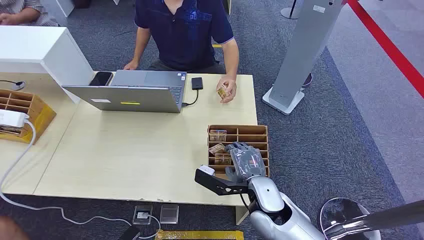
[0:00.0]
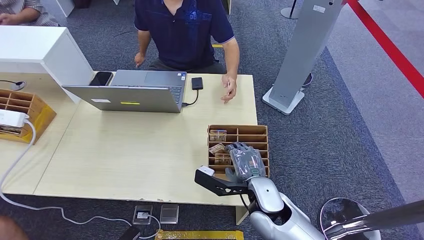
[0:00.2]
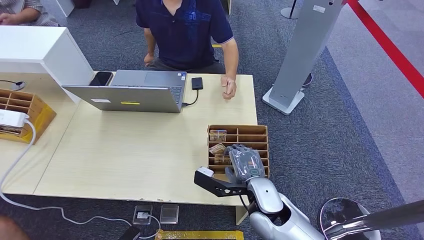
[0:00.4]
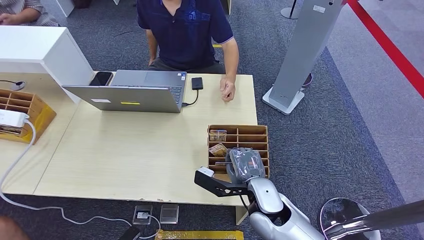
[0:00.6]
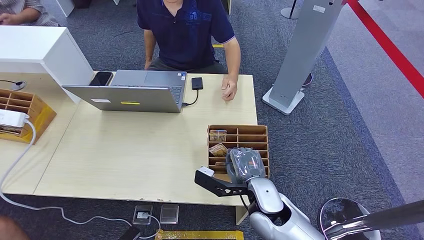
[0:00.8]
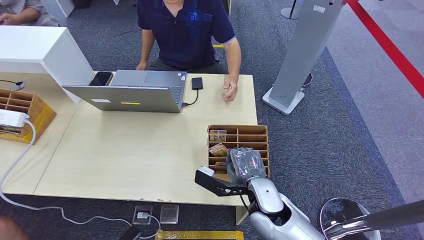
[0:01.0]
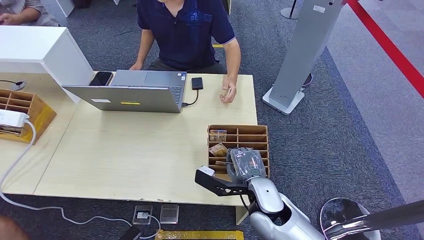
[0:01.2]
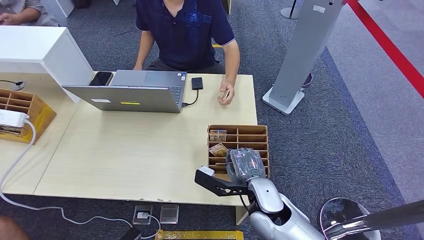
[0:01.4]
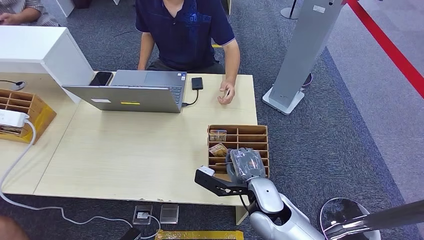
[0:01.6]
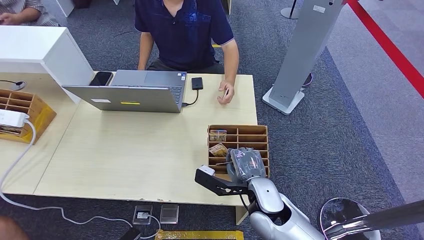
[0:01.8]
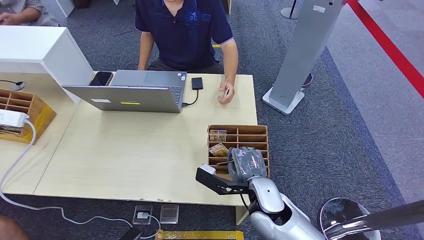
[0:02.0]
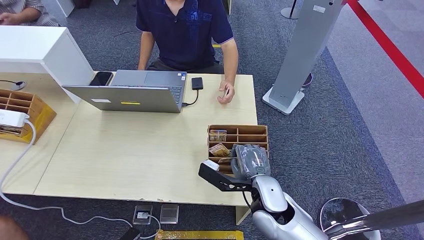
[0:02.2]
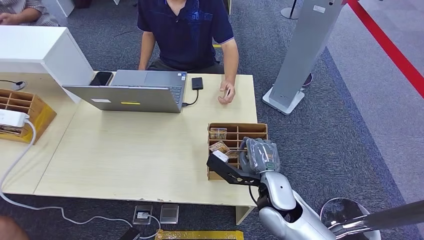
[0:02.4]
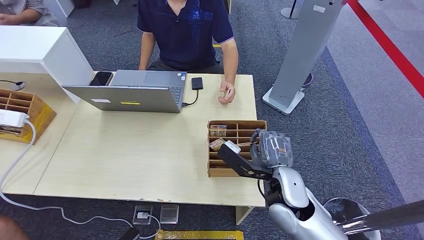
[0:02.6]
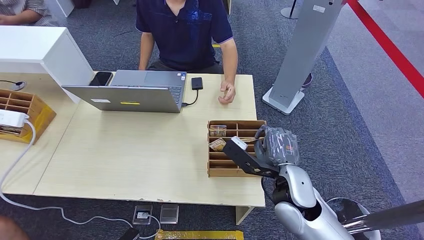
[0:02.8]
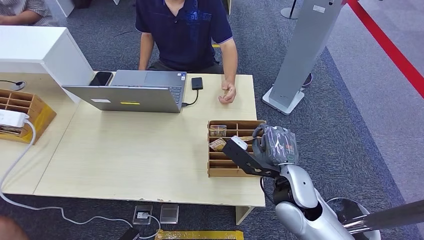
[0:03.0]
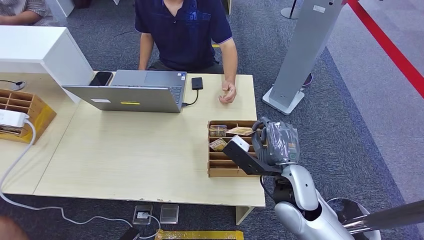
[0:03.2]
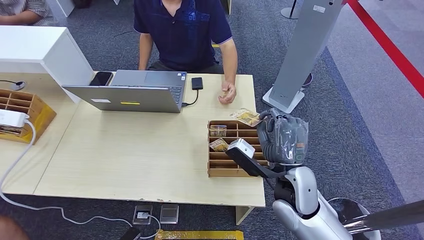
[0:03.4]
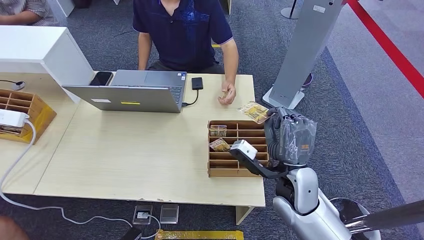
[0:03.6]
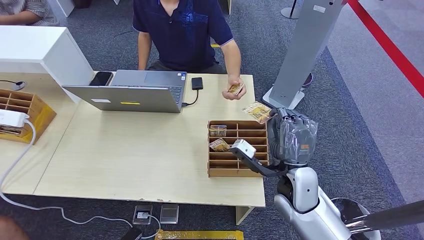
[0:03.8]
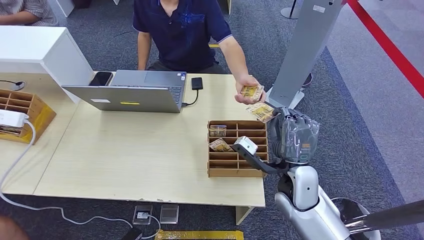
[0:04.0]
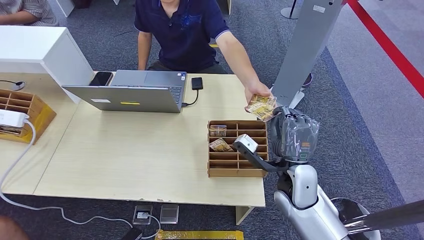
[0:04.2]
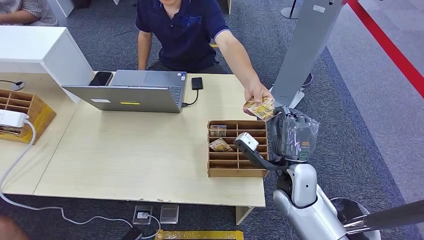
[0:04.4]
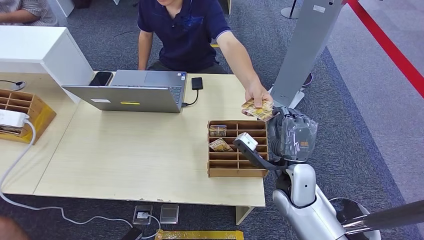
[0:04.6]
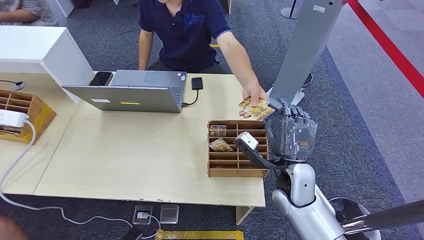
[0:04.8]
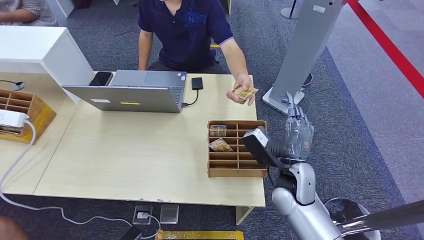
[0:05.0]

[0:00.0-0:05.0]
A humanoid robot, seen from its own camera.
Step, 0:00.0 to 0:02.4: Pick up the room card from the card holder.
Step, 0:04.2 to 0:05.0: Hand the room card to the target.
0:01.6 to 0:03.4: The right hand moves upward, some 5 cm.
0:03.4 to 0:05.0: The right hand changes place by some 5 cm.

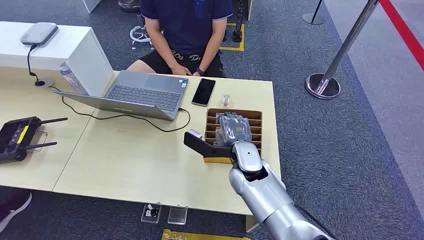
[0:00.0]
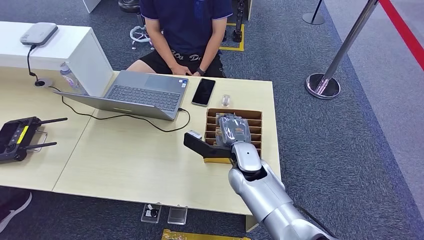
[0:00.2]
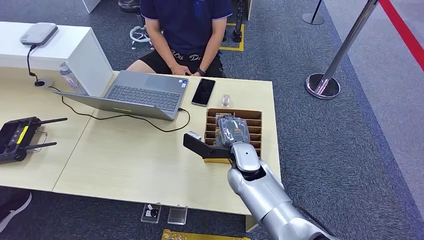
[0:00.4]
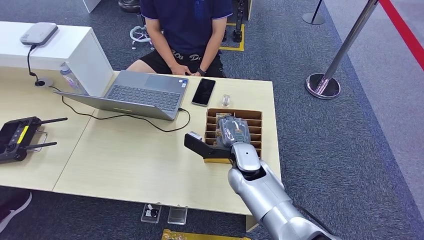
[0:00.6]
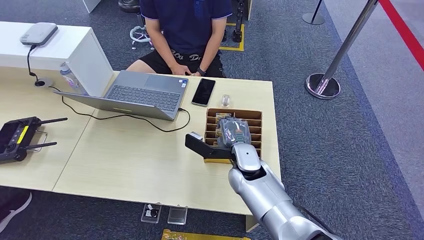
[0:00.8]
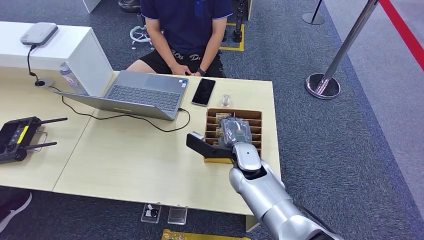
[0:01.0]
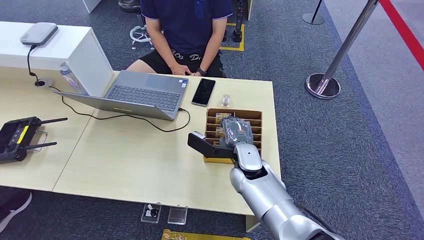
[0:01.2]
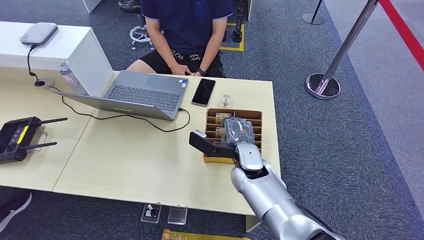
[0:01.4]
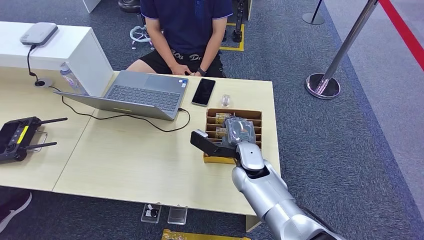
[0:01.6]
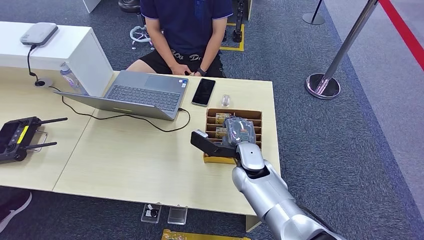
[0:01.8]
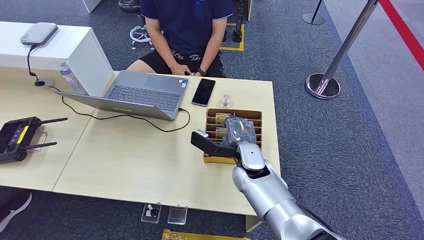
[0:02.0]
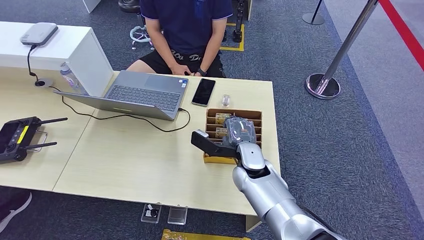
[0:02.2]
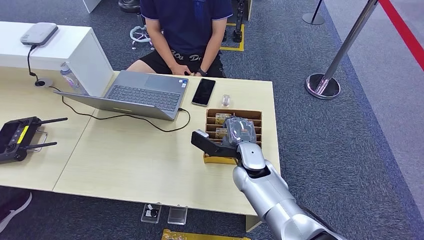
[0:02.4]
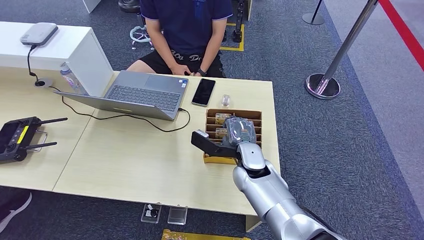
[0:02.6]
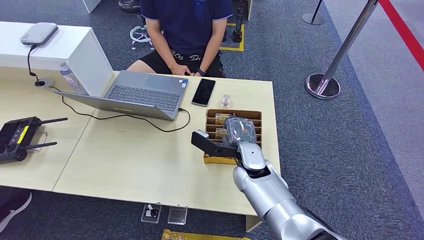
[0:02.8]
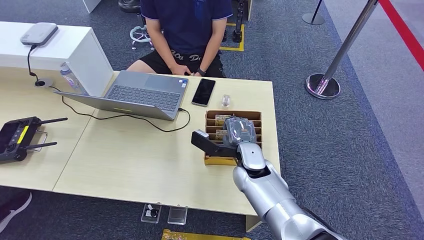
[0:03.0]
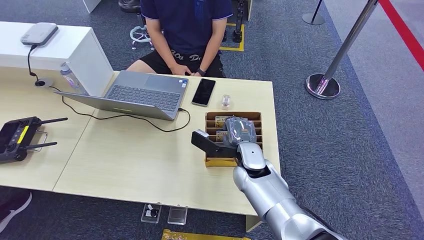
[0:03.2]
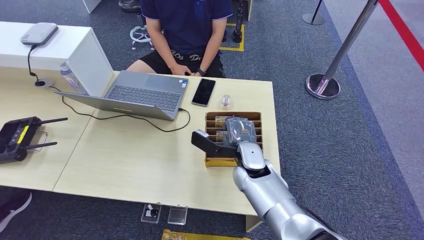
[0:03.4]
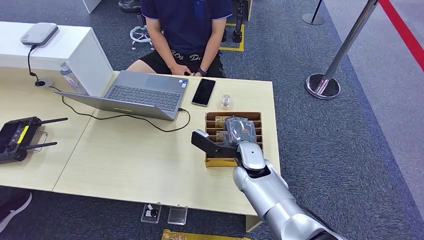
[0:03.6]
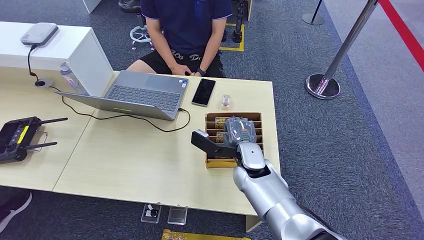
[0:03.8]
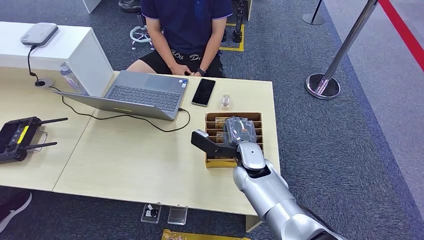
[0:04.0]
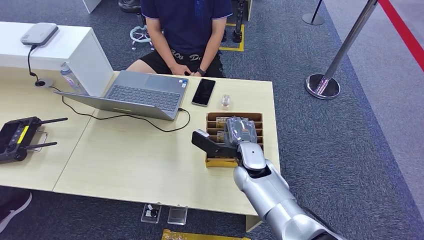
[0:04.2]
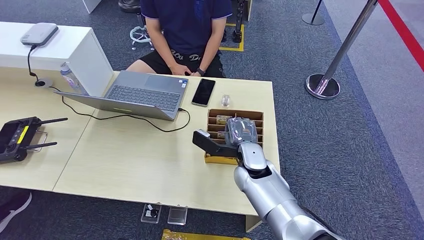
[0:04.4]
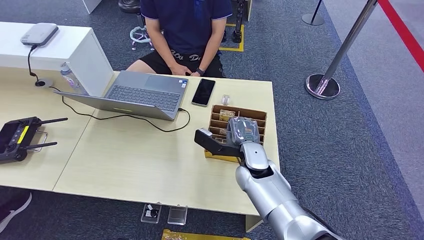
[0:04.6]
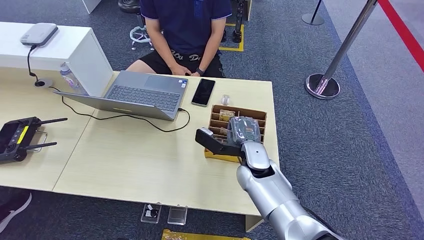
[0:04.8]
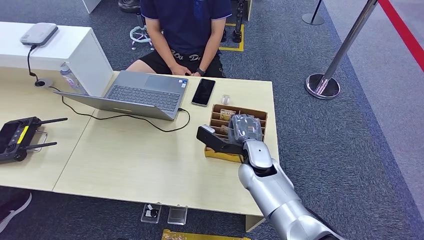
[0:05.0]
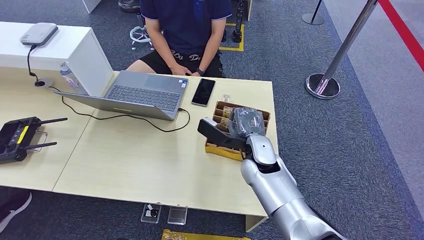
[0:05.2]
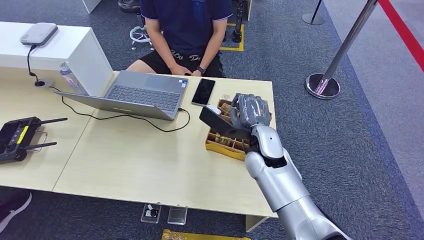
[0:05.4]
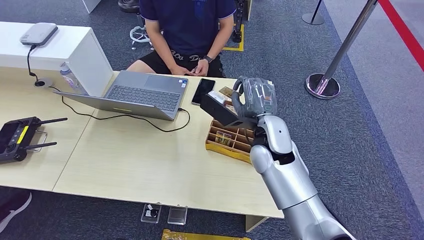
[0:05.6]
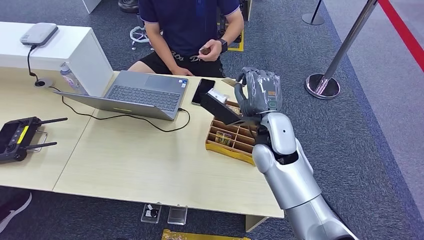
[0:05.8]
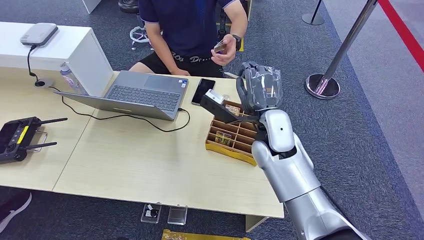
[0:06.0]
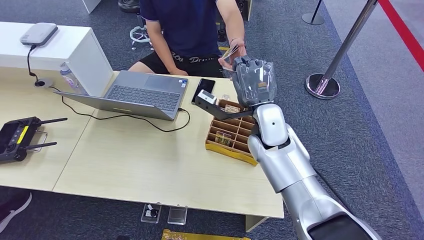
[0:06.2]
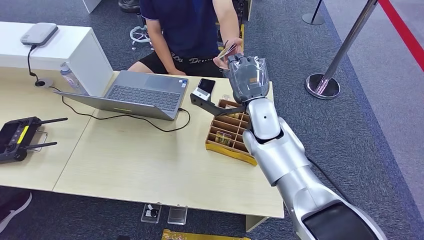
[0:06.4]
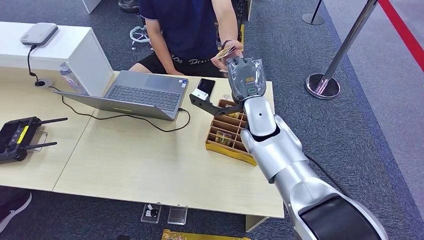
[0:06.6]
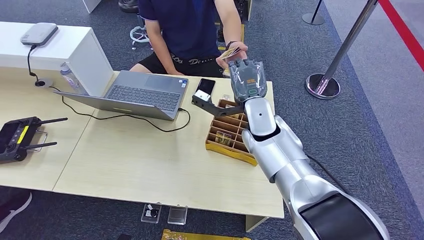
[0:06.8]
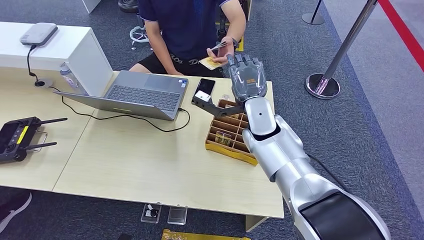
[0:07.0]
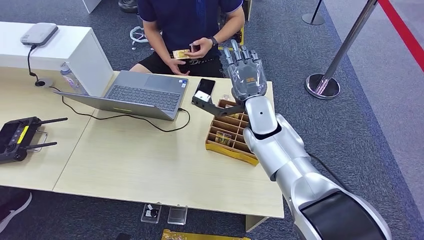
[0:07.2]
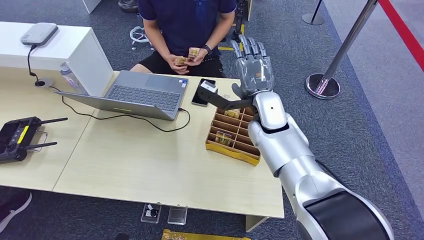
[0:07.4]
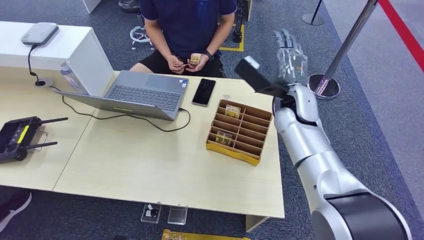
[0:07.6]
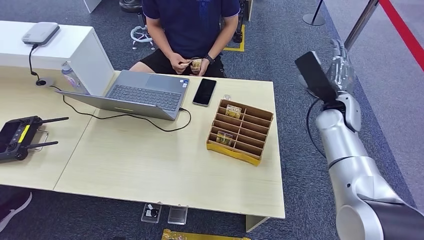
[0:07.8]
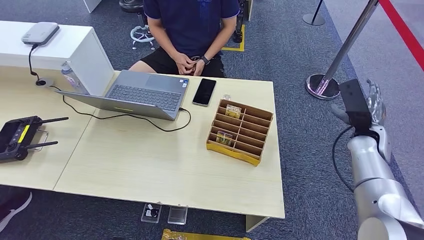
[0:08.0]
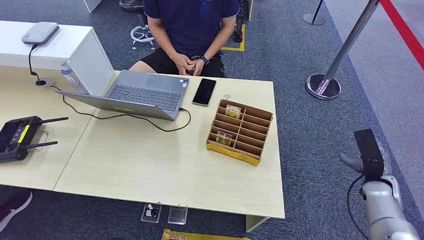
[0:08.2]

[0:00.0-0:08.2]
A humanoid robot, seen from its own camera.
Step, 0:00.0 to 0:05.2: Pick up the room card from the card holder.
Step, 0:05.4 to 0:08.2: Hand the room card to the target.
0:01.6 to 0:03.2: Both hands stay put.
0:03.2 to 0:05.0: There are only small adjustments of the hands.
0:05.0 to 0:06.6: The right hand goes about 10 cm upward and forward.
0:06.6 to 0:08.2: The right hand travels to the right and downward by roughly 40 cm.
